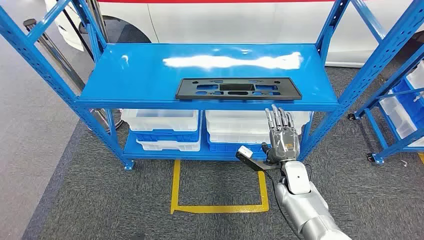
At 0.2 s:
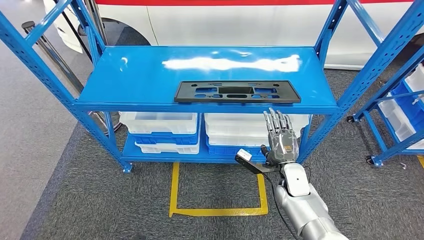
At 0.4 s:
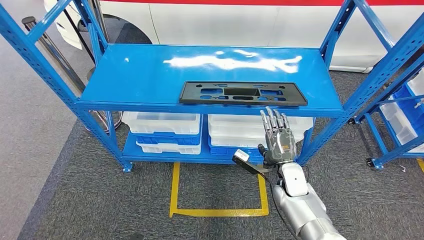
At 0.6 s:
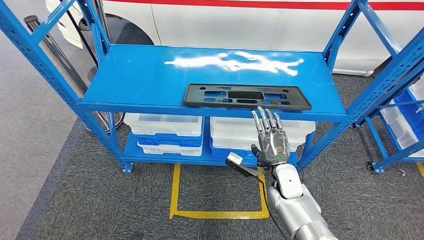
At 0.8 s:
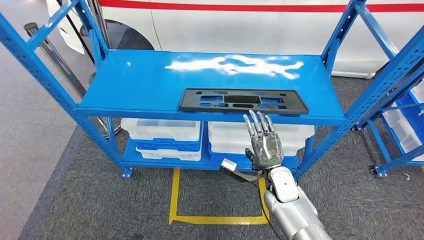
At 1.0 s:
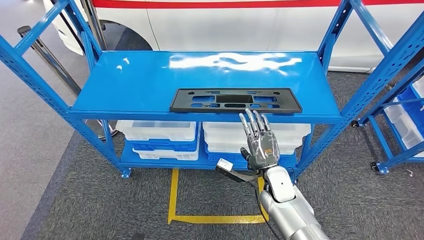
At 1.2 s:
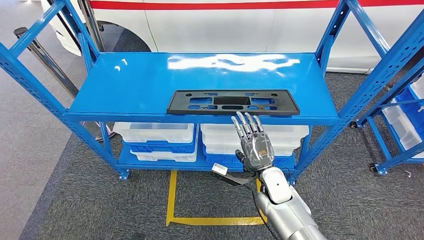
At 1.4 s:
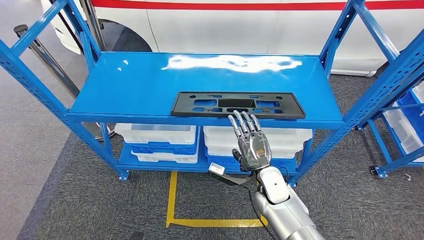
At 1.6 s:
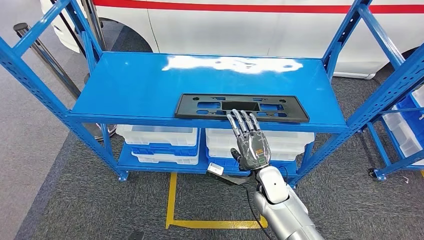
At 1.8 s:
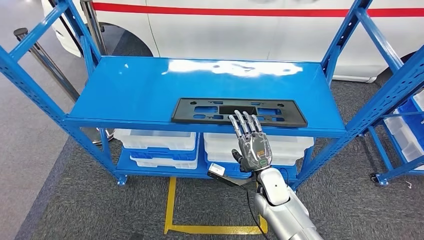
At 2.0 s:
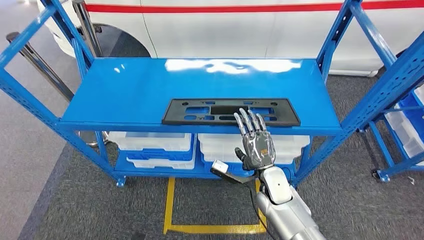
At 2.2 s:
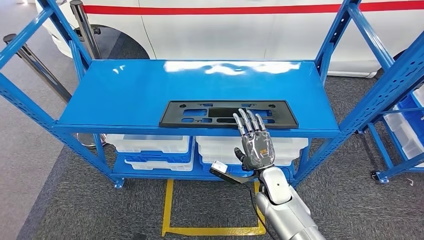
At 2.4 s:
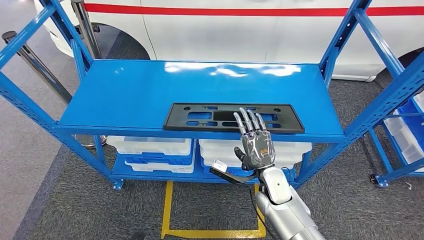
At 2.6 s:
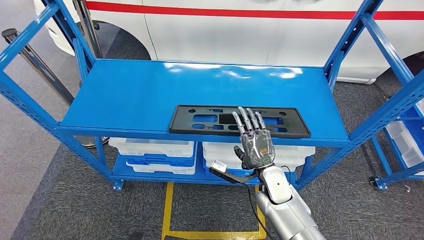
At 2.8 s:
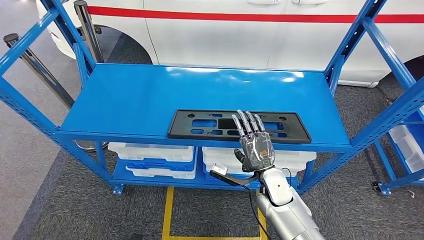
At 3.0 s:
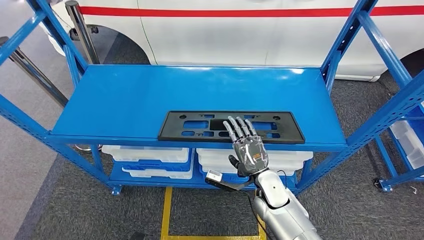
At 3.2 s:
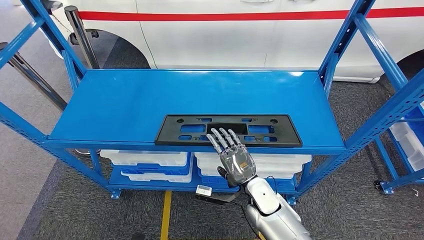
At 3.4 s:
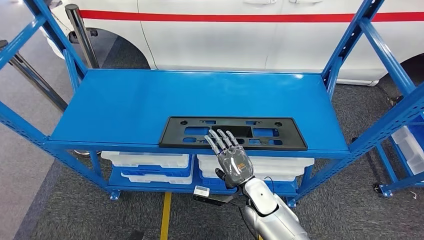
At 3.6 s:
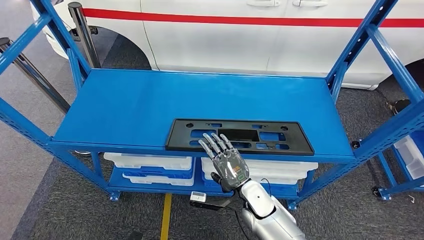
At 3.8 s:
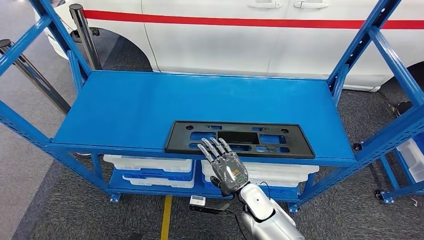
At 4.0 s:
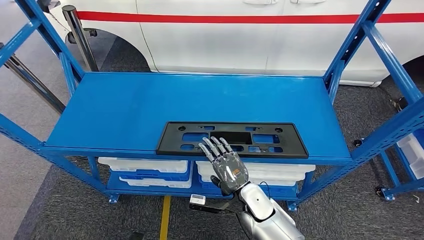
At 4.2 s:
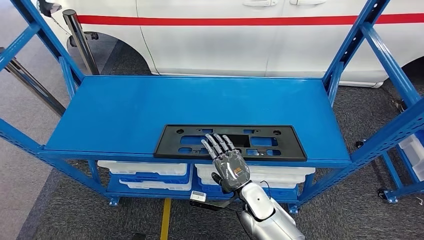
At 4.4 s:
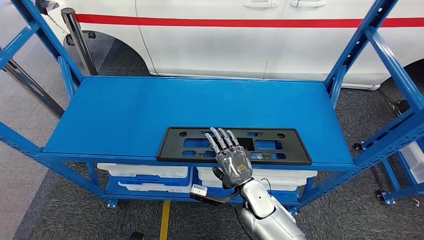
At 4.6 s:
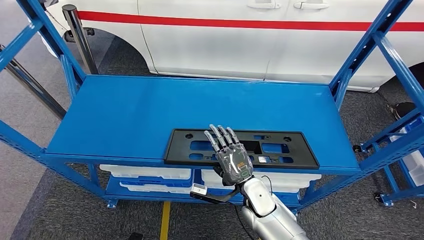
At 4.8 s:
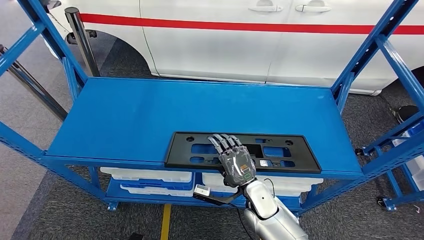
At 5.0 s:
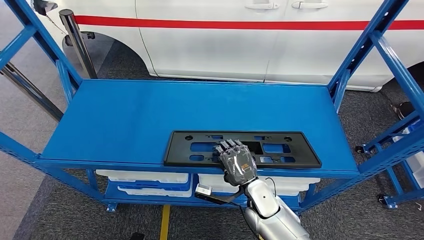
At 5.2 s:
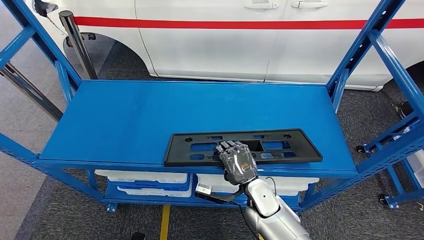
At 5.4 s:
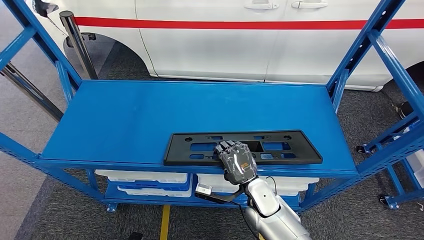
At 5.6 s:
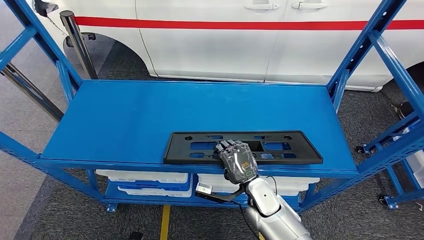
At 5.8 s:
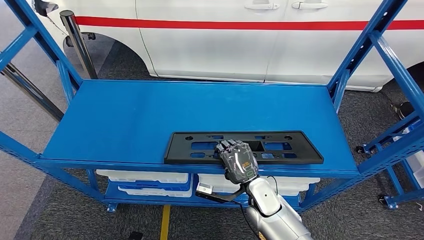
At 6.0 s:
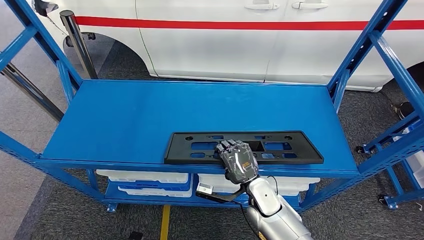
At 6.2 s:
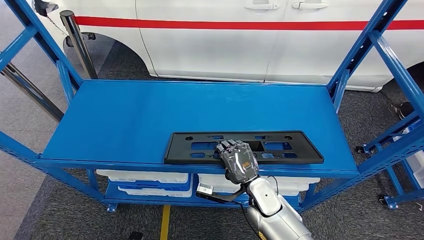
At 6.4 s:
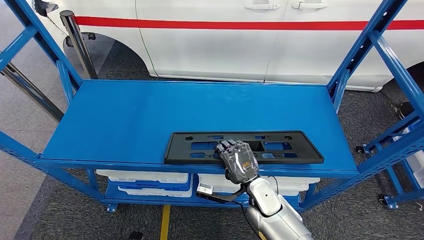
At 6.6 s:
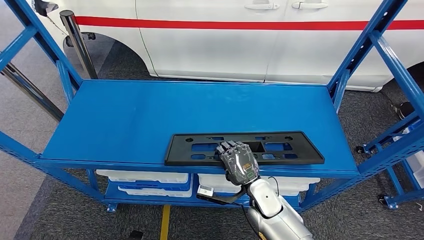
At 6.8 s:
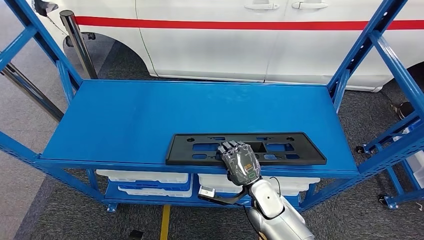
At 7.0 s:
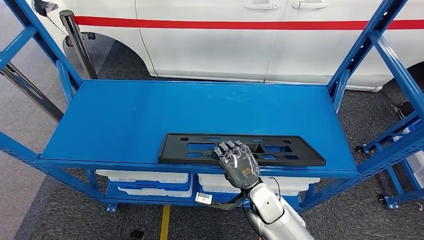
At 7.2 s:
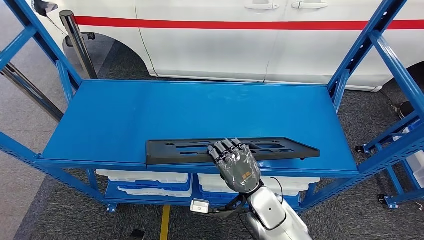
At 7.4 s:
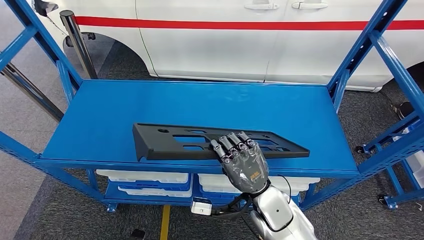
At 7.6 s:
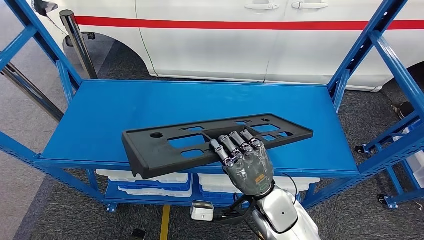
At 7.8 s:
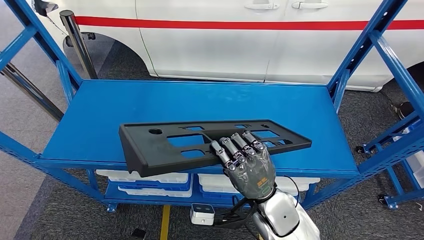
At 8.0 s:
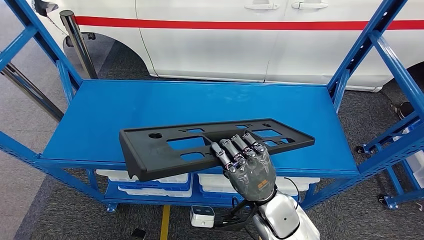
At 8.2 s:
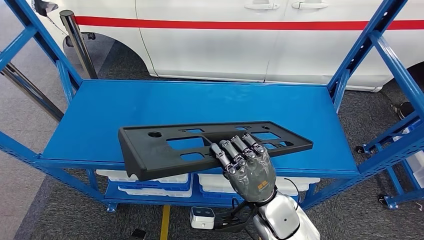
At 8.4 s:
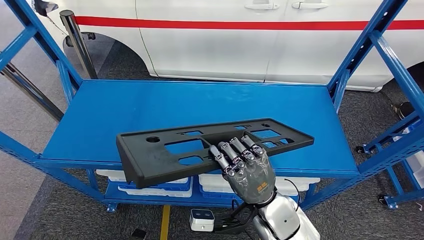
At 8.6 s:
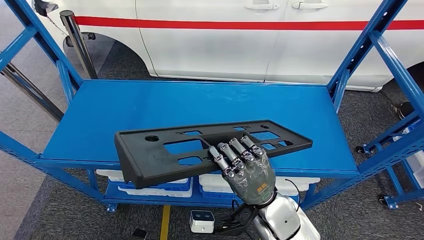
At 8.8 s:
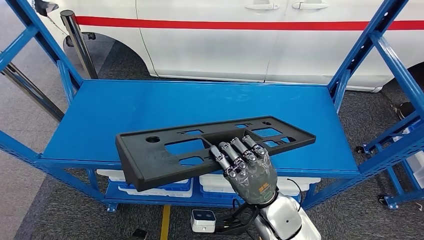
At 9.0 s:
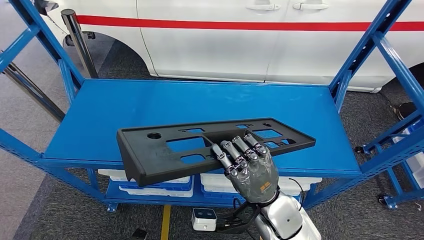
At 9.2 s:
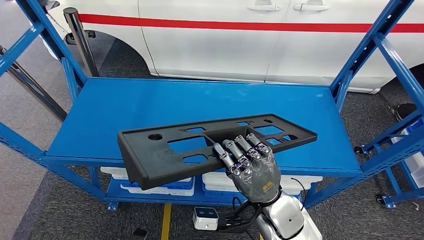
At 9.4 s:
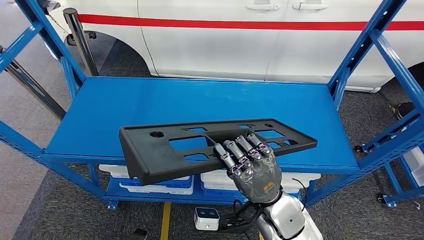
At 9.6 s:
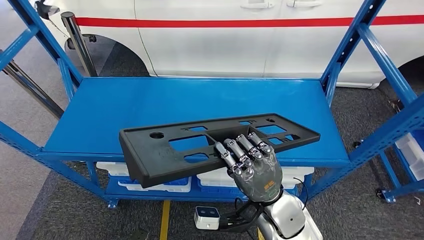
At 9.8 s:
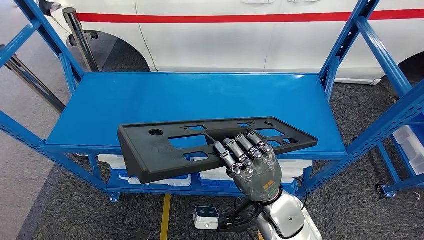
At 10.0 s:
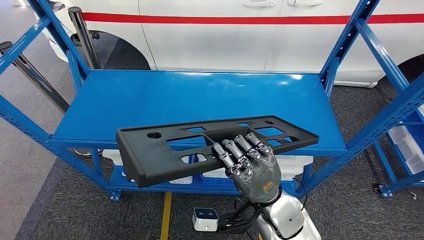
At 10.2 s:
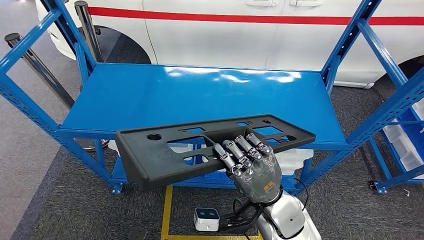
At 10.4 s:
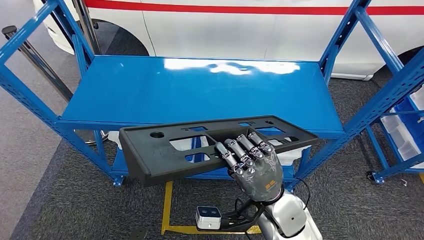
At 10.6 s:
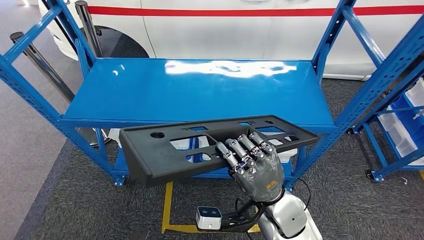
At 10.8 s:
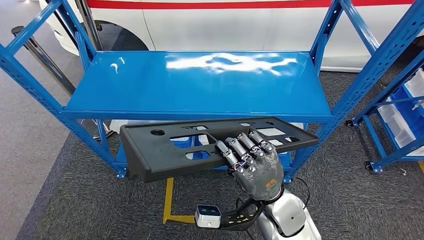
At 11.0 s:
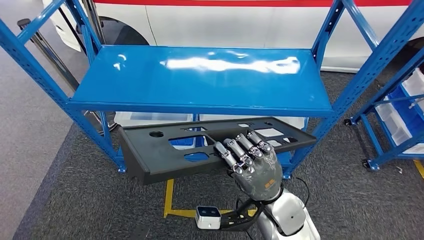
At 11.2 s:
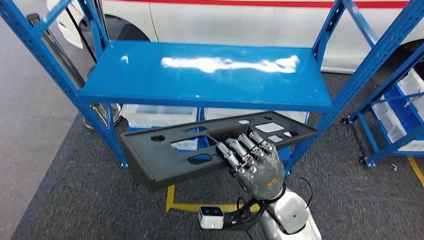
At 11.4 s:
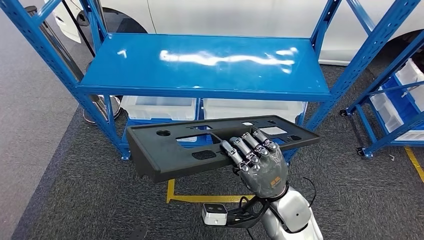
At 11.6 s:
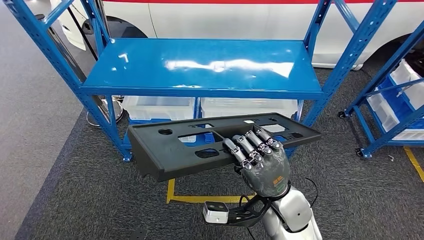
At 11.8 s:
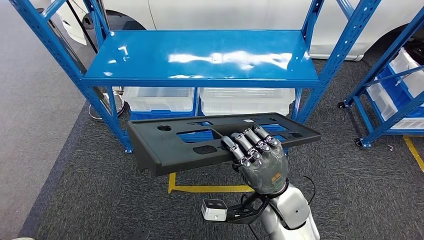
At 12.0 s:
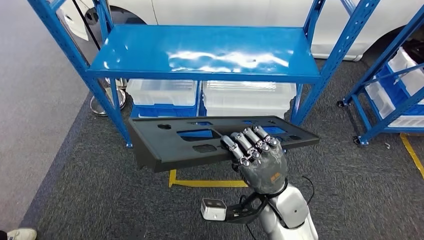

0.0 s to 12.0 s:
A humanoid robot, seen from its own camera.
Step, 0.0 to 8.6 s: Pick up the large material from the shelf.
6.0 to 7.6 s: The right hand travels upward by roughly 10 cm.
7.6 to 9.0 s: There are only small adjustments of the hands.

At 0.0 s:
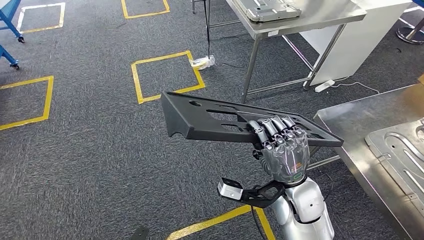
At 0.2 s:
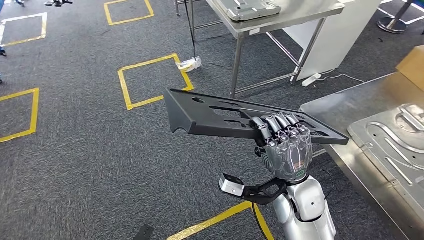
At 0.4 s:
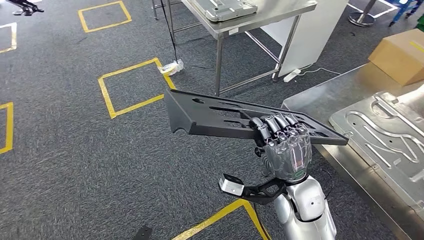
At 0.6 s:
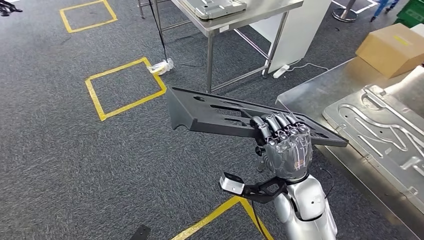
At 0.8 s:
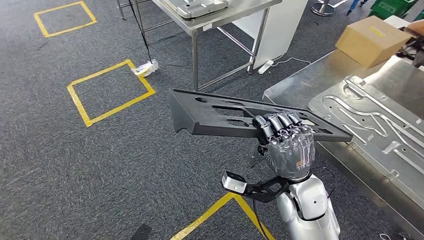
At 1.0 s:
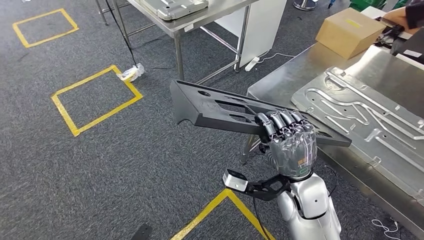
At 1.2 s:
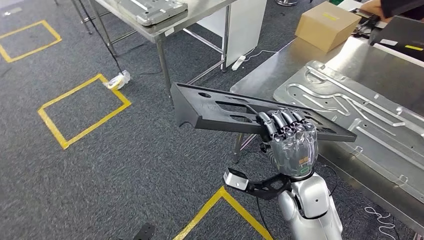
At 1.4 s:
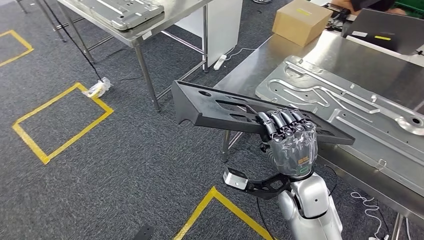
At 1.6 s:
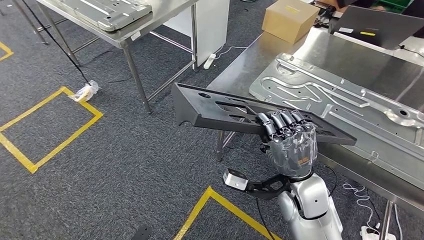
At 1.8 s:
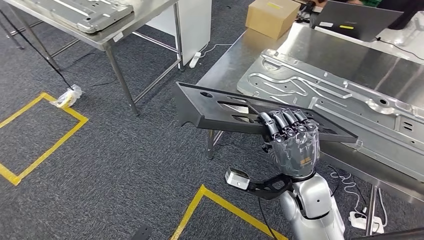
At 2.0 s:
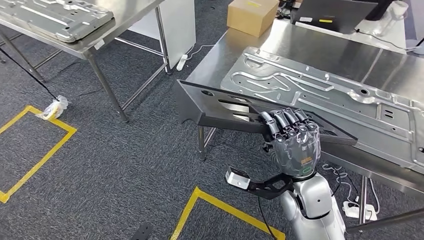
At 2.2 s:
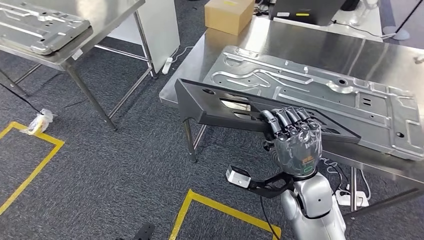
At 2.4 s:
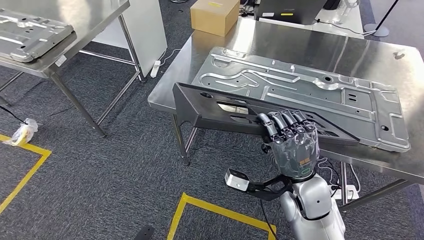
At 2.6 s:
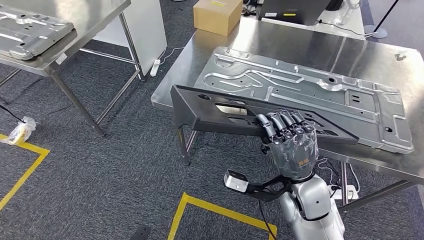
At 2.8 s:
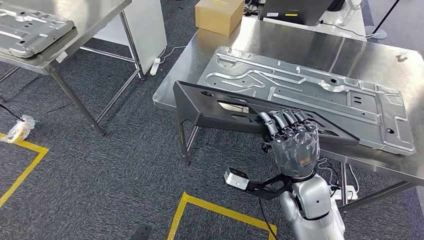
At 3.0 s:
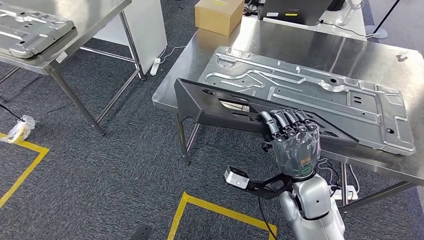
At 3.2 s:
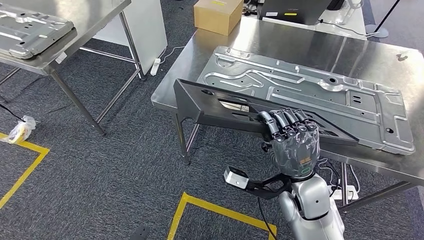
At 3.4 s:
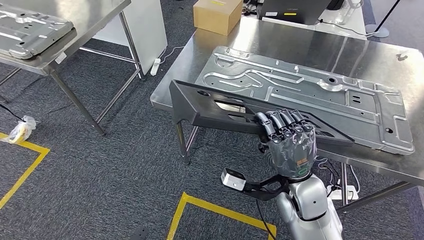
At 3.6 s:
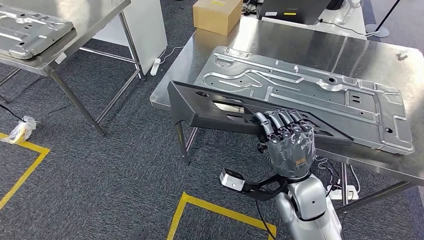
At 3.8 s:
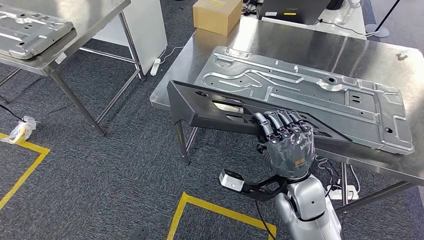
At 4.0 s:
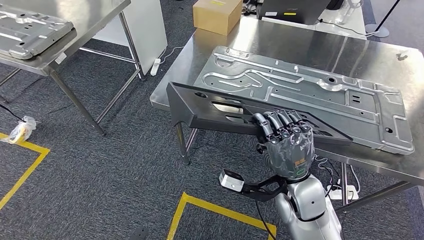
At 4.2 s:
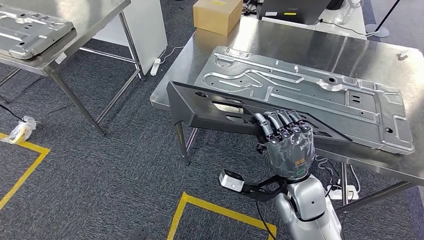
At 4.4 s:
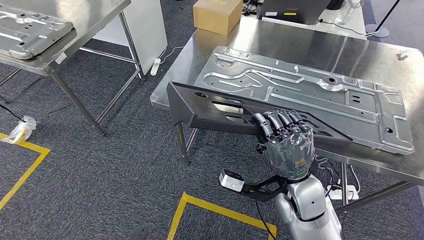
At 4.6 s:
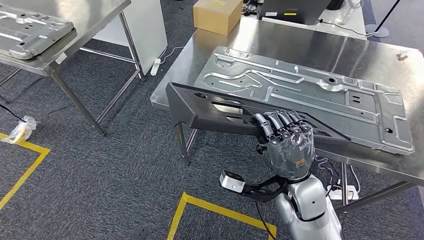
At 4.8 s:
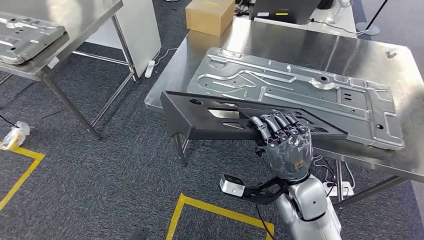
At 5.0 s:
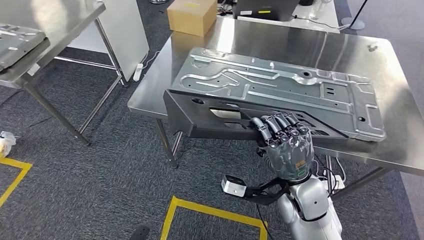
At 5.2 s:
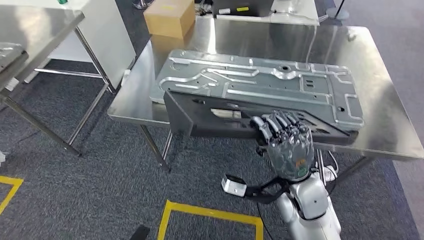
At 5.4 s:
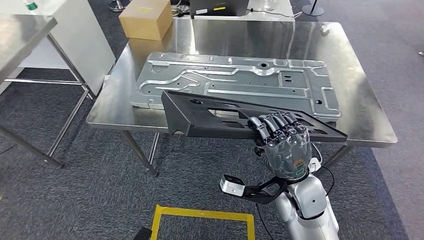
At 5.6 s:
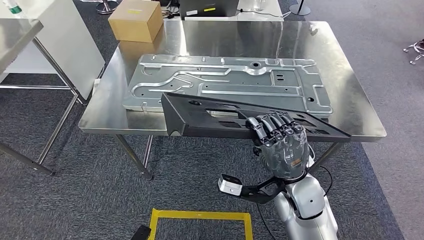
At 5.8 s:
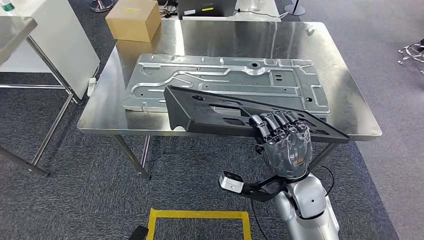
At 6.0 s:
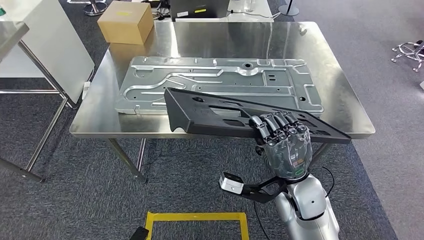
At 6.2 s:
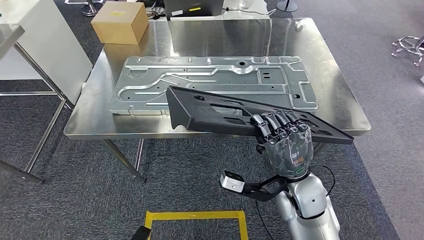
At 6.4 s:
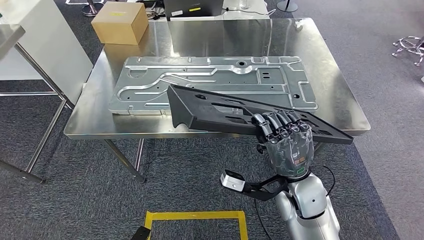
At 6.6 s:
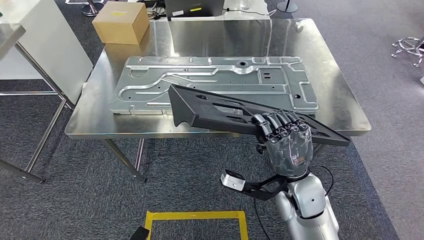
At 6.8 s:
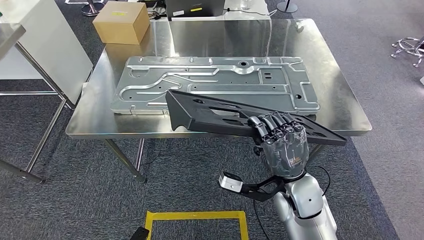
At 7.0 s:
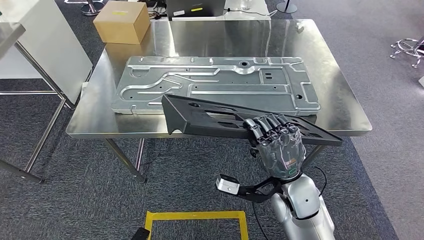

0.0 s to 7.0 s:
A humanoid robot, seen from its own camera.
2.8 to 4.2 s: The hands move only a little.
